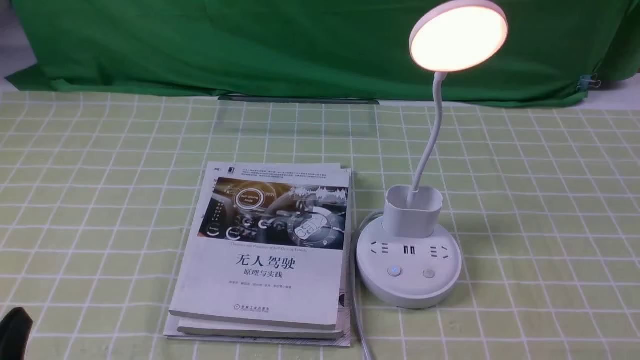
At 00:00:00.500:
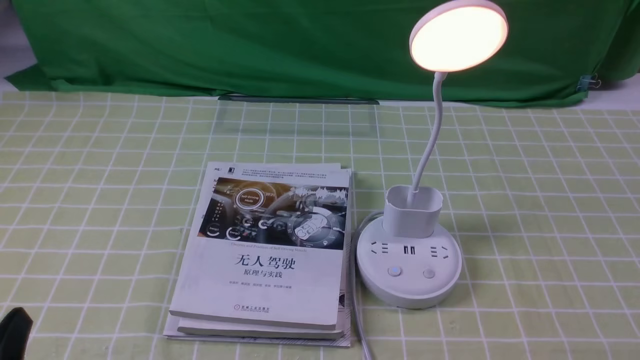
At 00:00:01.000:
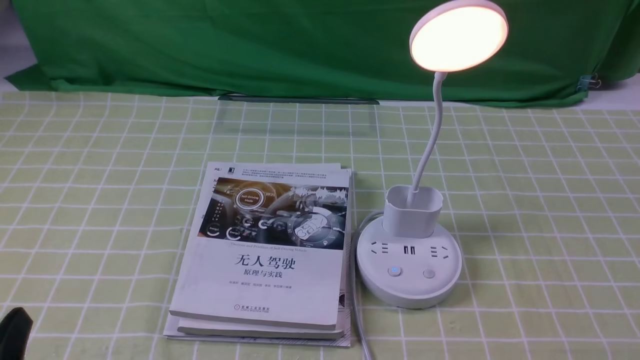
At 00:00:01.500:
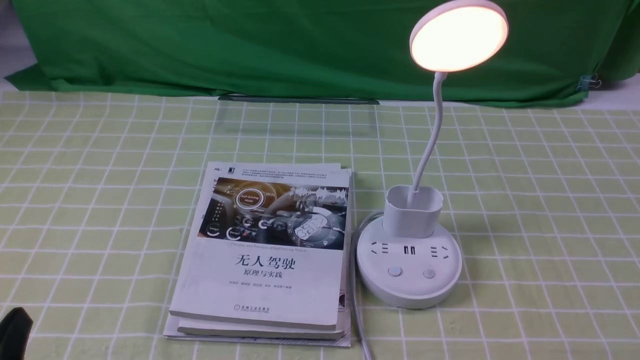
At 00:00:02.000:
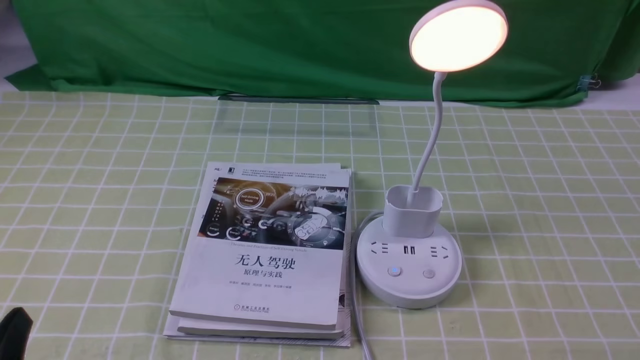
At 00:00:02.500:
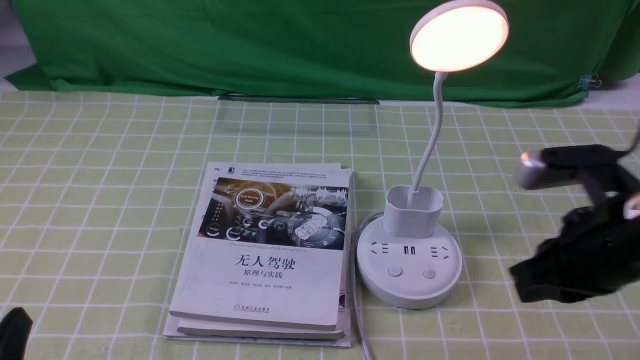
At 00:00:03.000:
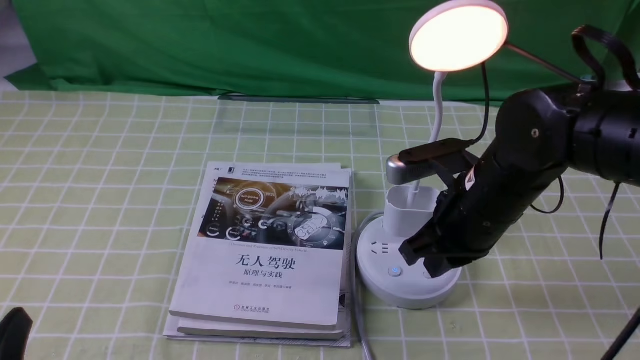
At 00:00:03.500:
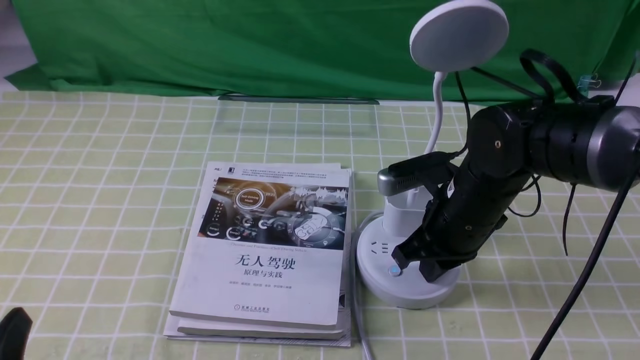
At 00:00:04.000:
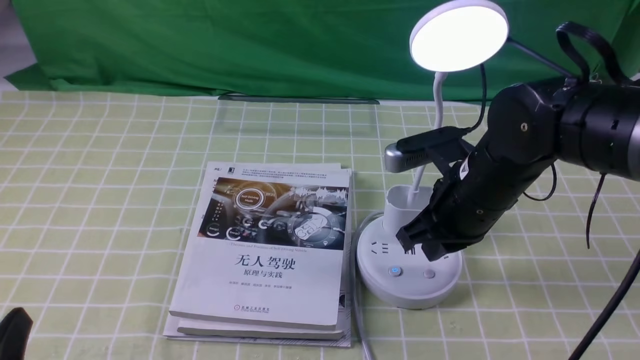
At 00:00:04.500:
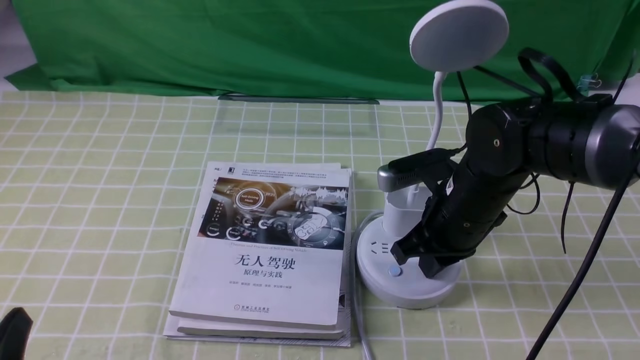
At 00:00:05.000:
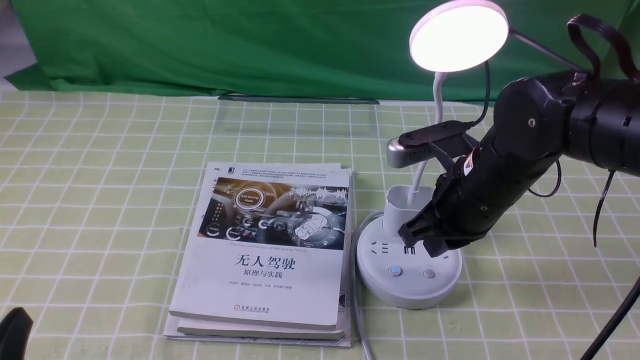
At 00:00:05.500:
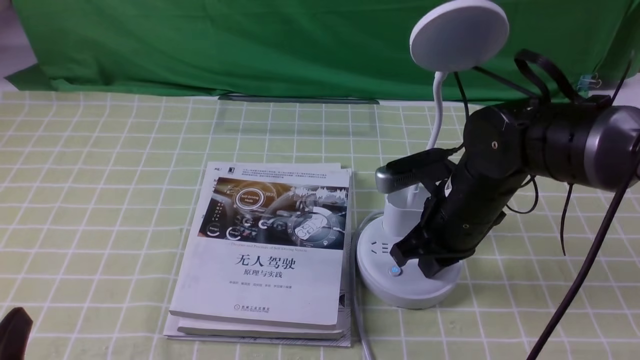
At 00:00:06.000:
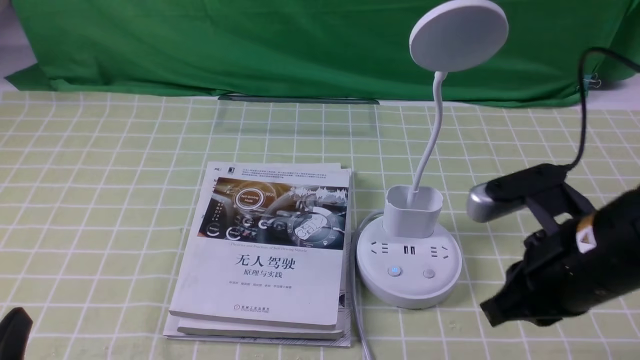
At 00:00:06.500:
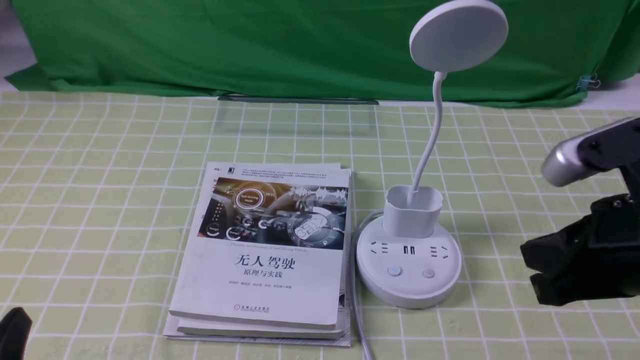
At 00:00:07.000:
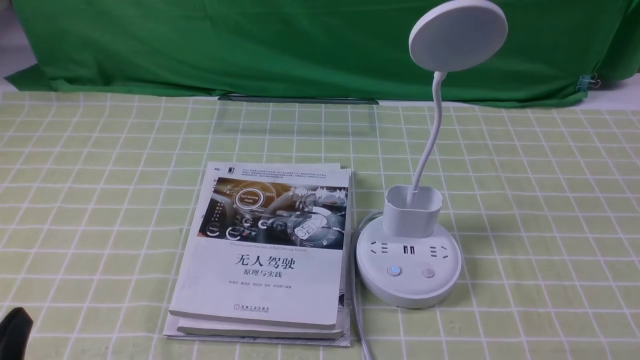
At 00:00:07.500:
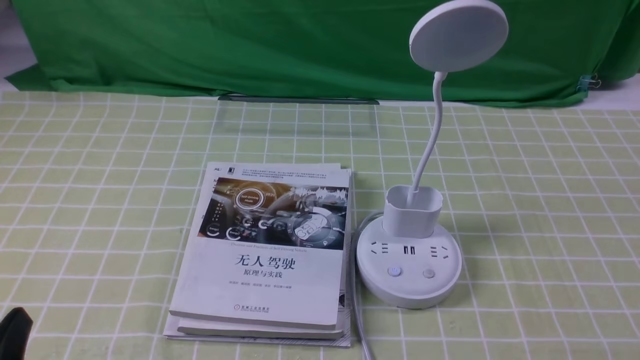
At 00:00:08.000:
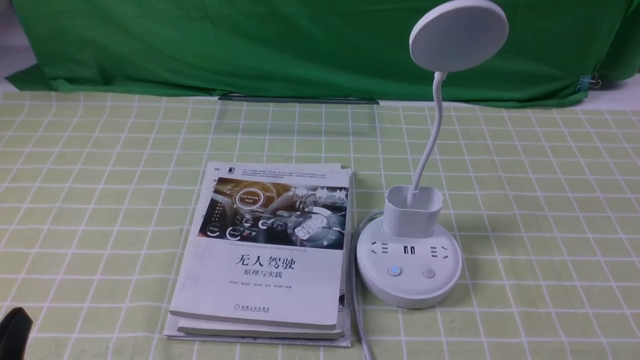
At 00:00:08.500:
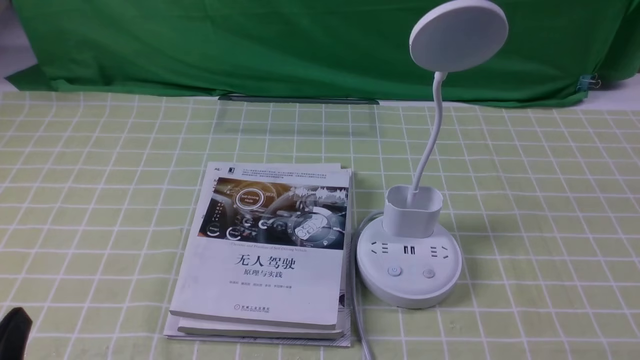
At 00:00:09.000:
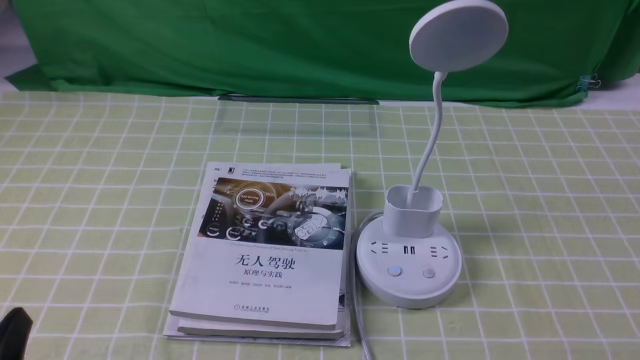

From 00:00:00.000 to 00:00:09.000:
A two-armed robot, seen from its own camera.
Task of the whole recording: turn off the desk lamp on the green coffee tablecloth by hand.
Step, from 00:00:00.000 to 00:00:05.500: use the right arm to press the button switch on the lamp holder.
From 00:00:02.000 to 00:00:04.500: The right gripper is displaced forward and to the left by some 30 cm.
From 00:00:04.500 to 00:00:07.000: The right gripper shifts about 30 cm backward and to the right.
